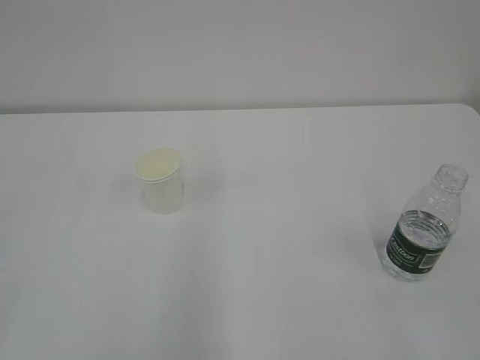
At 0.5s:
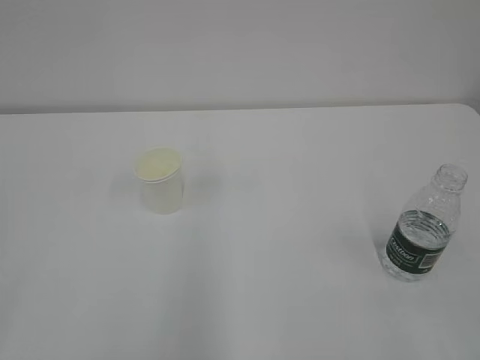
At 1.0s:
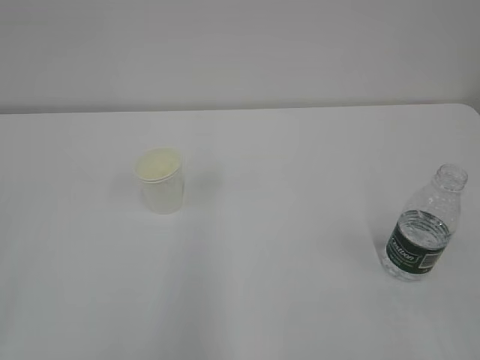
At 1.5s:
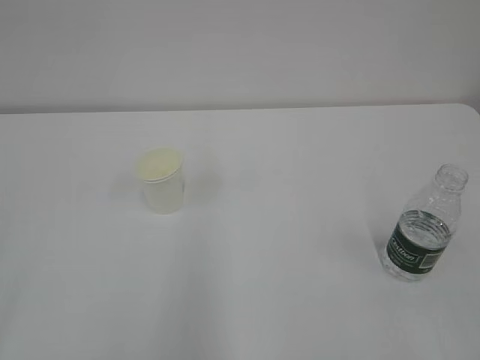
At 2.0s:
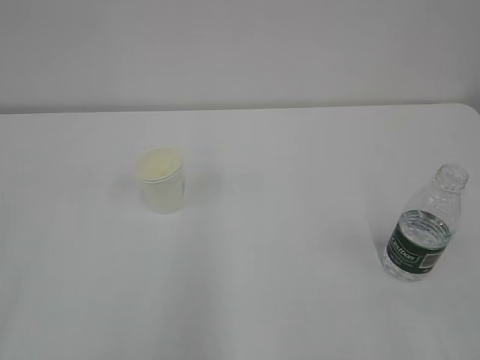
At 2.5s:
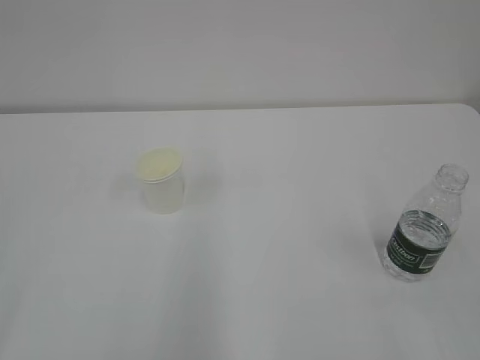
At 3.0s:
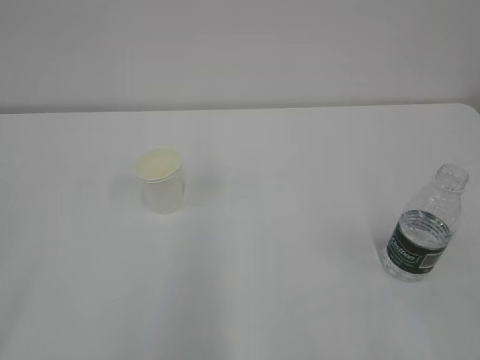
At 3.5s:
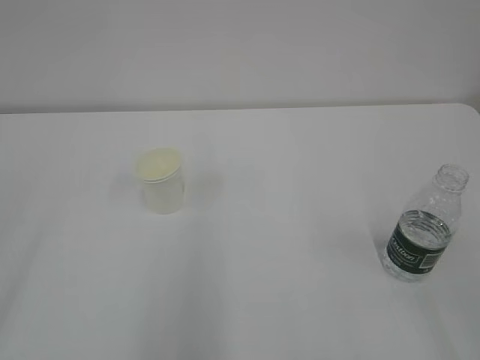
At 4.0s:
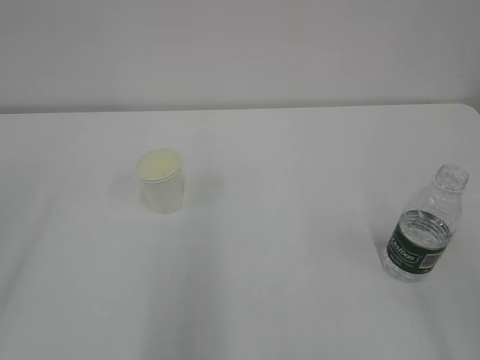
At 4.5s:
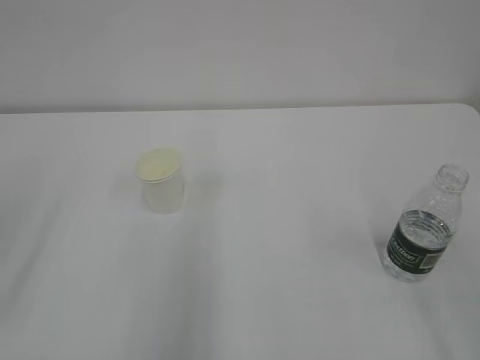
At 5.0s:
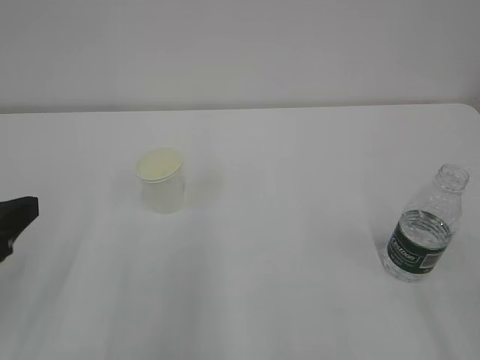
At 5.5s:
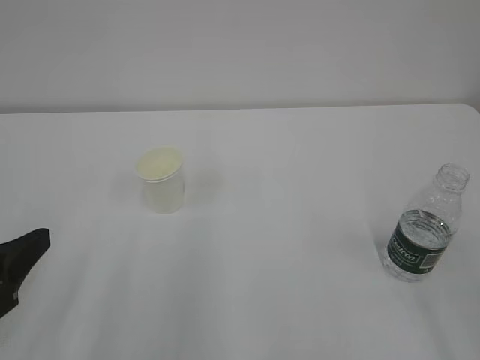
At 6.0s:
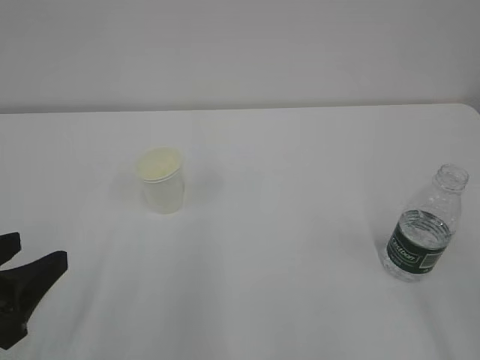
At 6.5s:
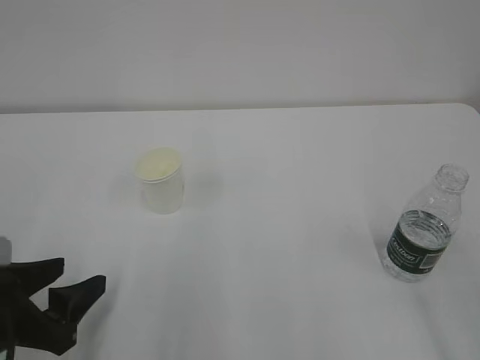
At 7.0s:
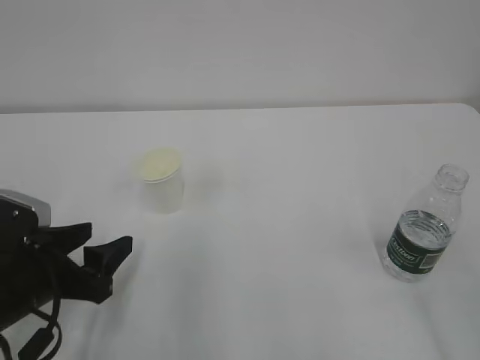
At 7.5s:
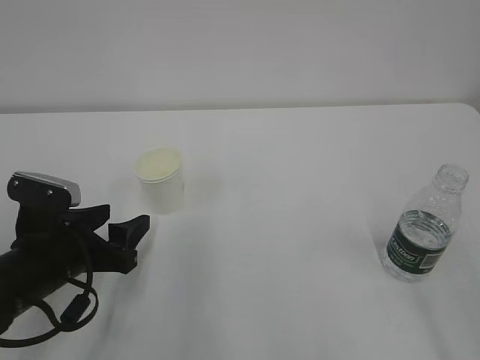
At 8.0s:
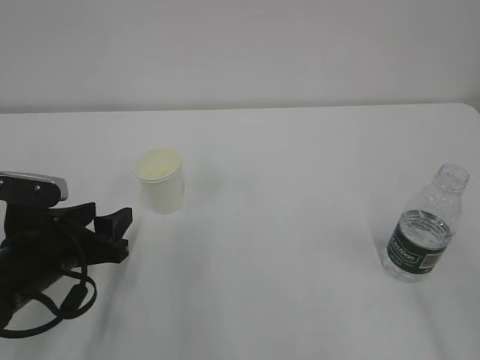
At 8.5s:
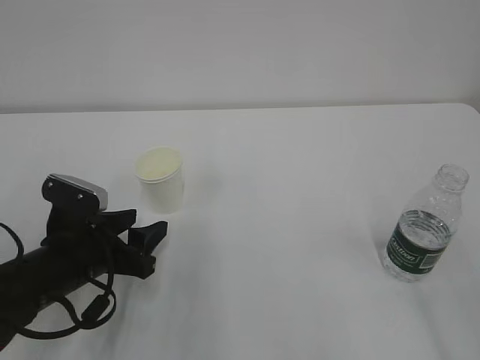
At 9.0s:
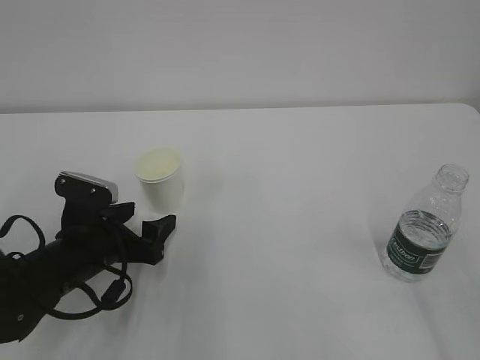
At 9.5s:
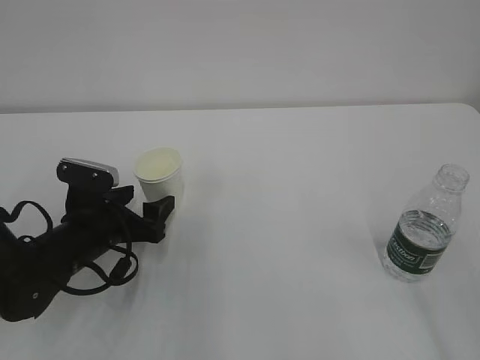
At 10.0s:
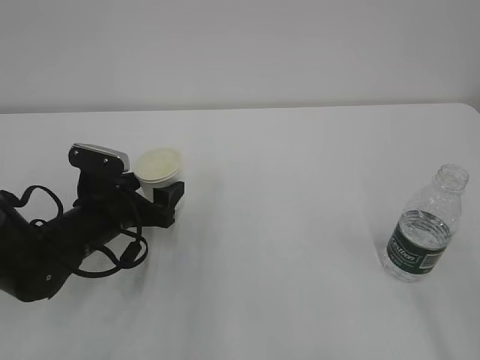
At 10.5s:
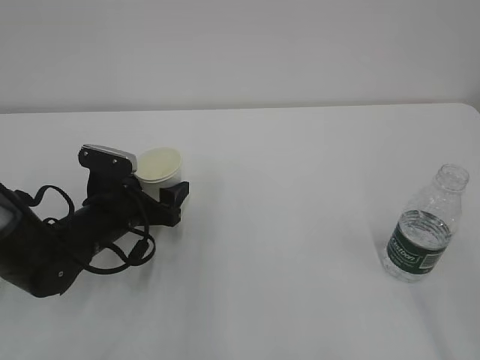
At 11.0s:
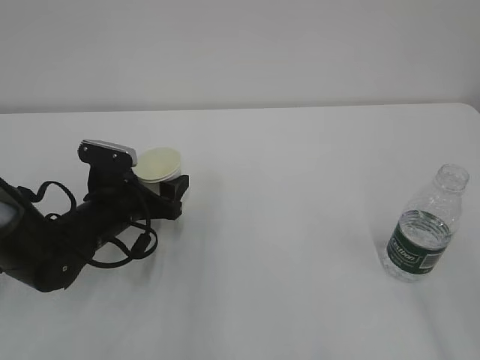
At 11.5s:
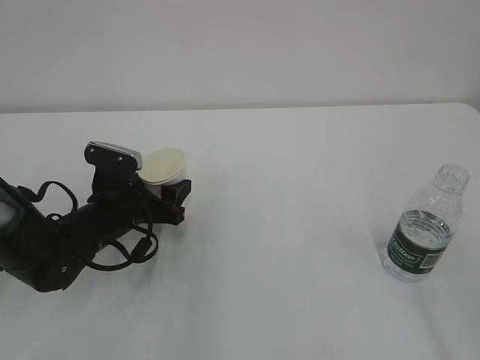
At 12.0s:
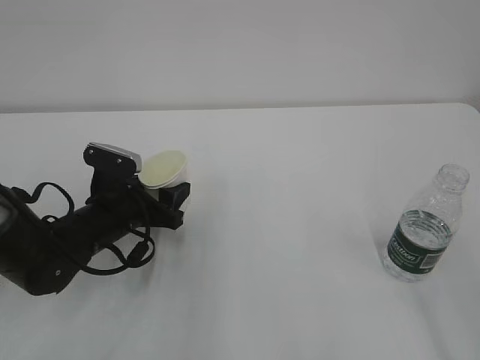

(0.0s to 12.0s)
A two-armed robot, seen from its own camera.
4.0s - 6.0s: The left gripper goes roughly 15 cm downward.
6.0s - 8.0s: The left gripper is displaced forward and downward by approximately 10 cm.
8.0s - 10.0s: The left gripper travels forward by some 10 cm, and opens.
10.0s - 12.0s: The left gripper closes its fingers.

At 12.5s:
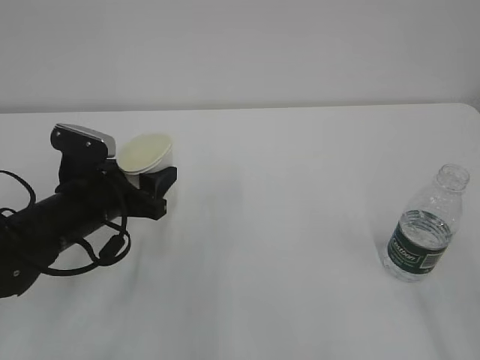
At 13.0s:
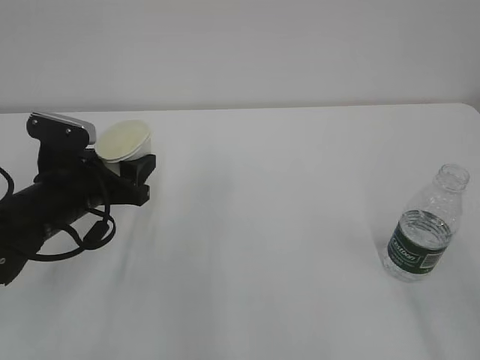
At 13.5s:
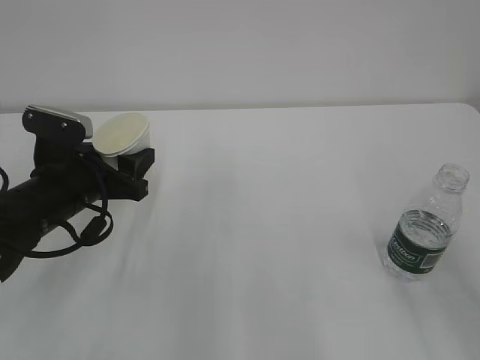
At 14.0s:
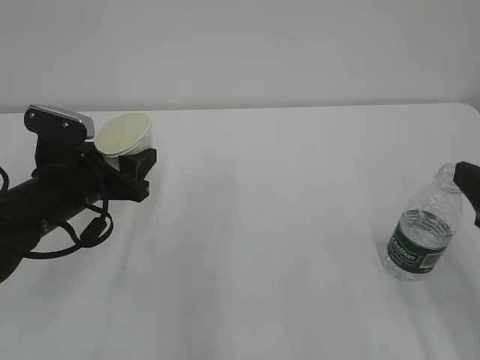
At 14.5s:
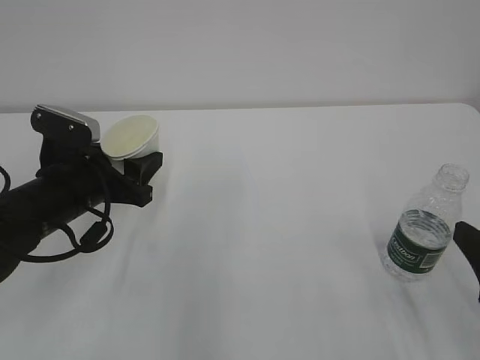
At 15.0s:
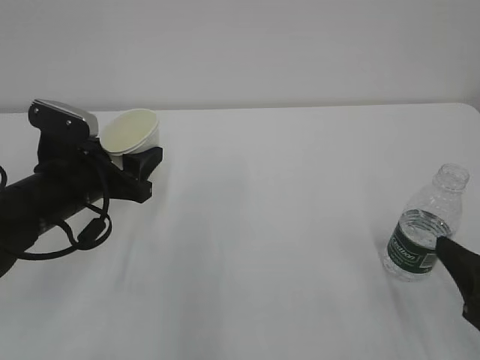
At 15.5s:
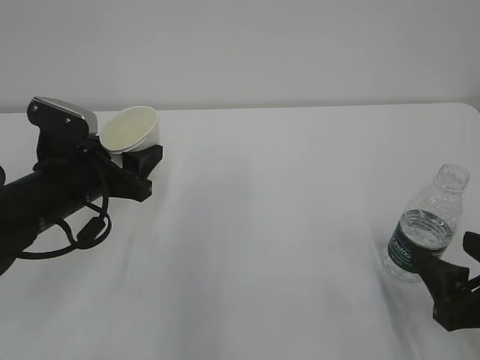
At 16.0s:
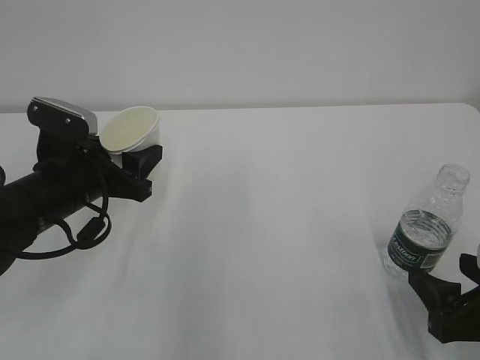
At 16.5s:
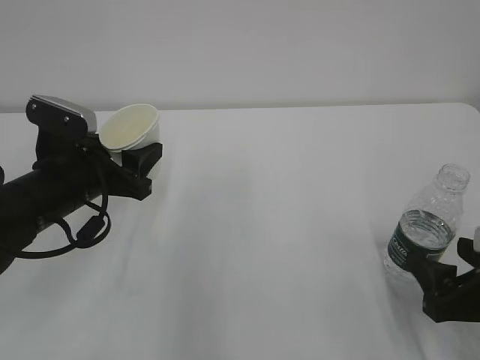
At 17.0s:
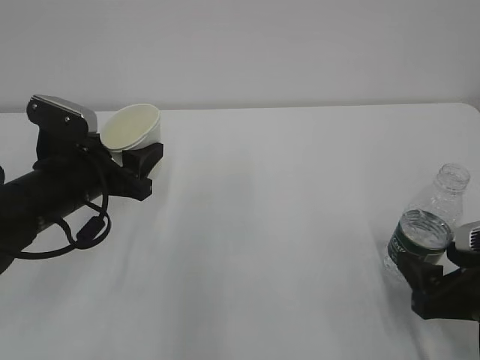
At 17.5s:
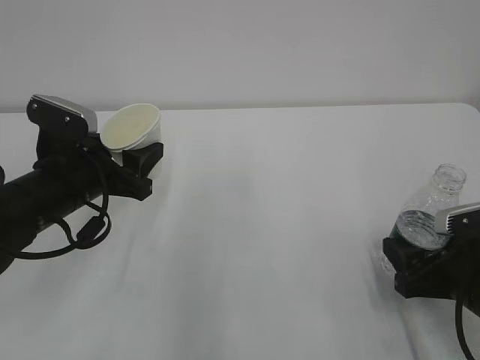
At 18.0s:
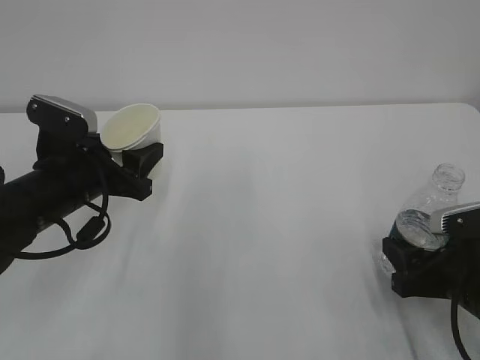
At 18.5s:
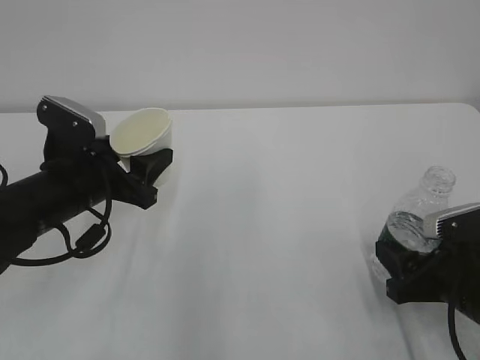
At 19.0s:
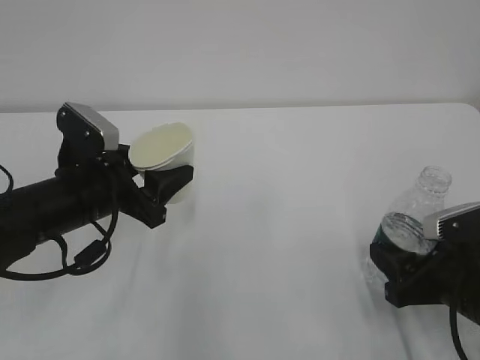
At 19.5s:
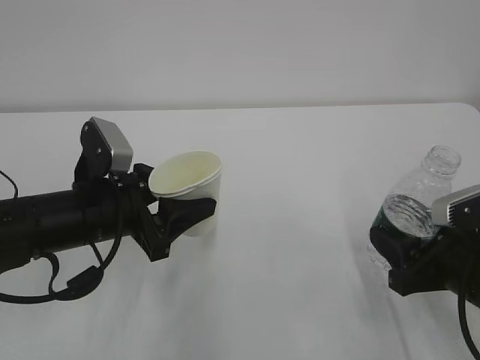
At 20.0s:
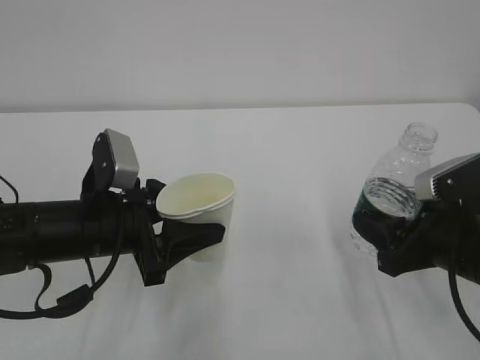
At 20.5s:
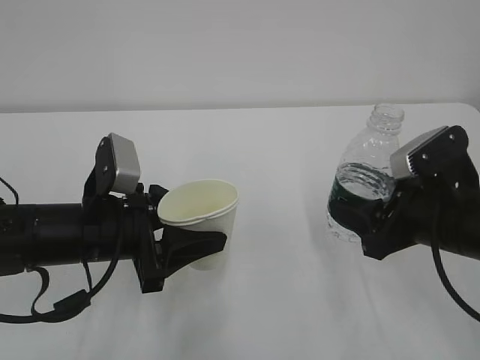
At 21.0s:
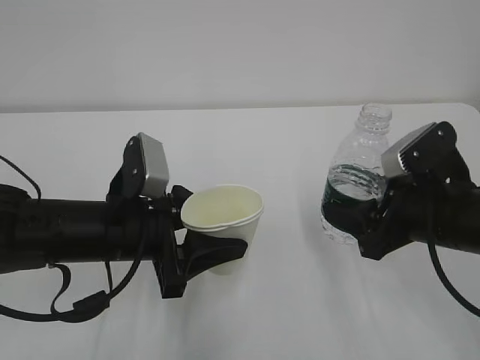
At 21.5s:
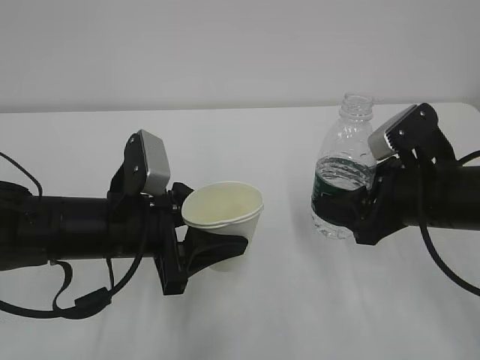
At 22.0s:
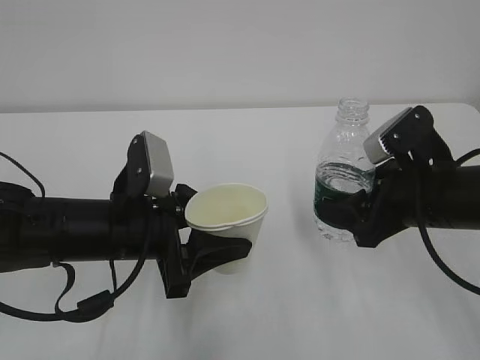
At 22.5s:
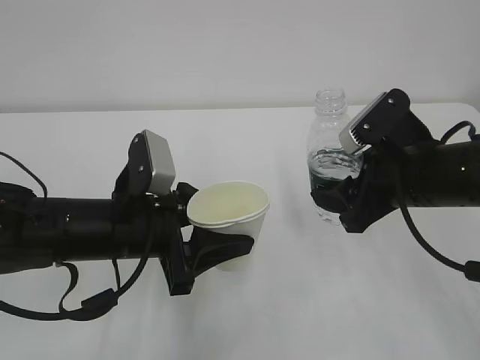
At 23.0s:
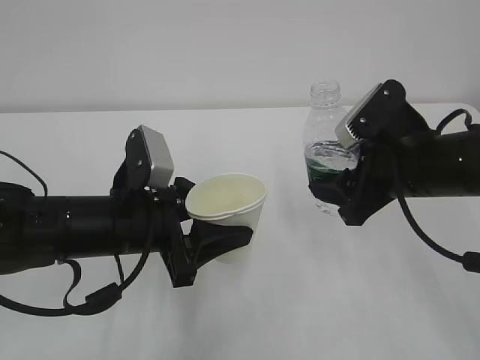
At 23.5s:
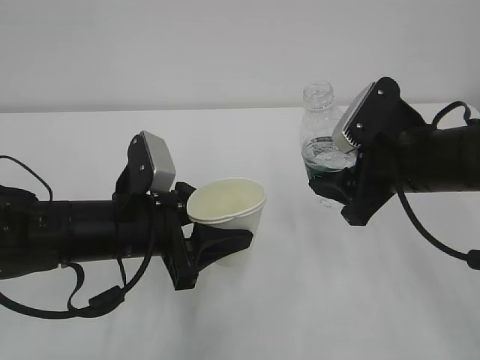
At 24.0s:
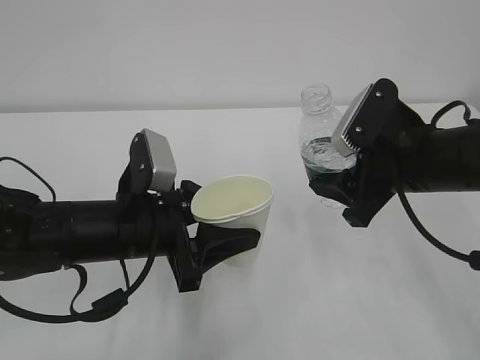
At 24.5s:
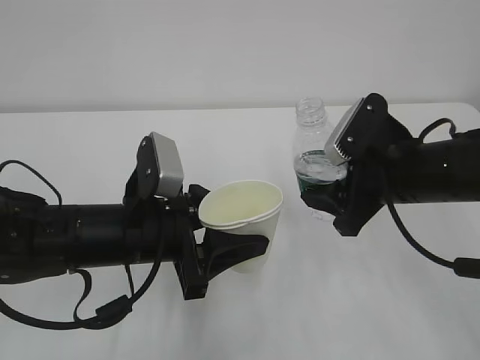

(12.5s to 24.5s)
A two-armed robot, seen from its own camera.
12.5s - 14.5s: The right gripper travels downward and forward by about 15 cm.
14.5s - 16.5s: The right gripper moves downward, roughly 5 cm.
16.5s - 18.5s: The right gripper shifts by some 5 cm, and closes.
18.5s - 20.5s: The left gripper moves about 5 cm; the right gripper is displaced upward by some 5 cm.
20.5s - 22.5s: The right gripper shifts by roughly 5 cm.
22.5s - 24.5s: The grippers stay close to where they were, moving slightly.

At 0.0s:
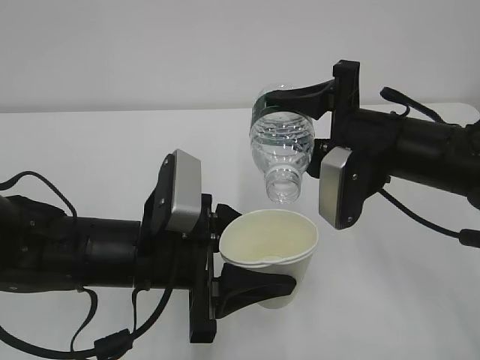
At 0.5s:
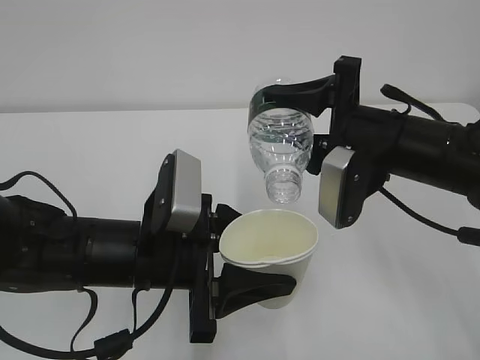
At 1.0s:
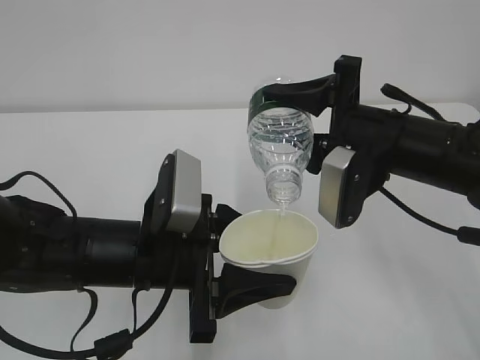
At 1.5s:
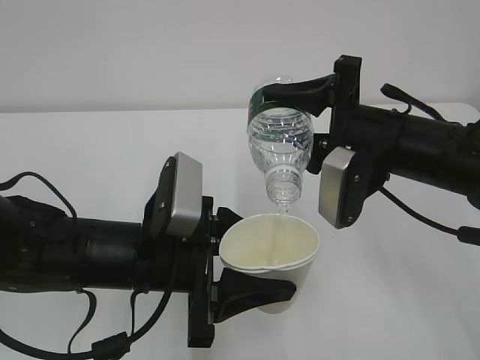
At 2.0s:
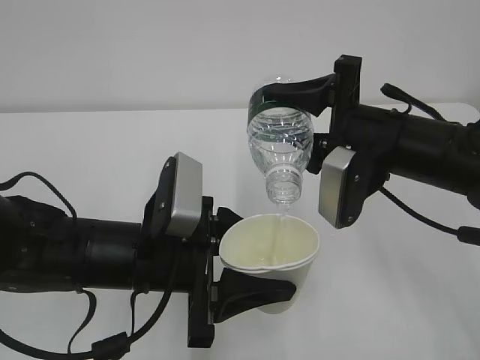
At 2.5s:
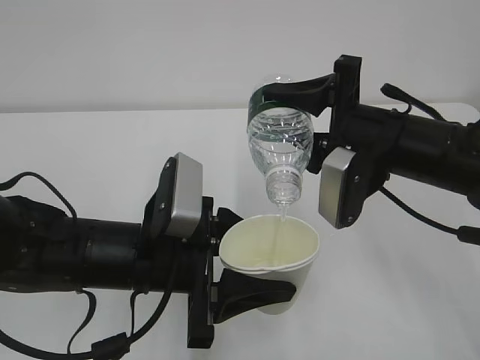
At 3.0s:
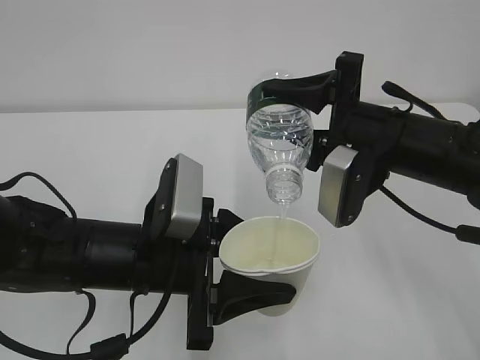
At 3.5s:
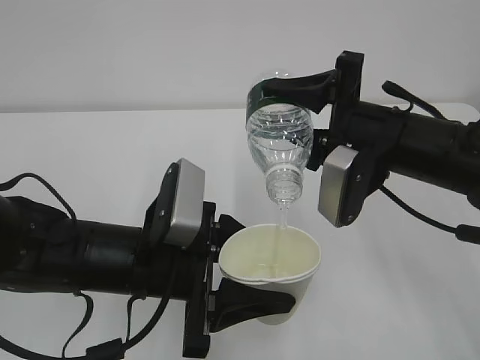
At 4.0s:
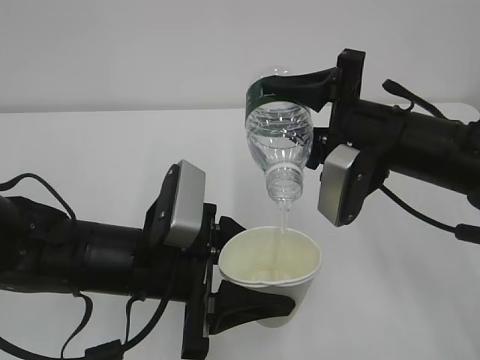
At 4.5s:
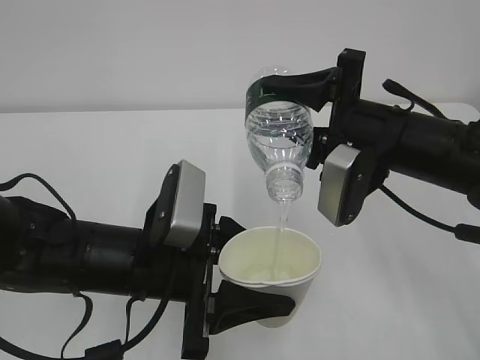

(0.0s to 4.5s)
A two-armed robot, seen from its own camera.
0.0s - 2.0s: Neither gripper changes place.
2.0s - 4.5s: Neither gripper changes place.
